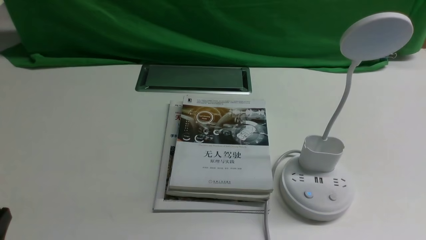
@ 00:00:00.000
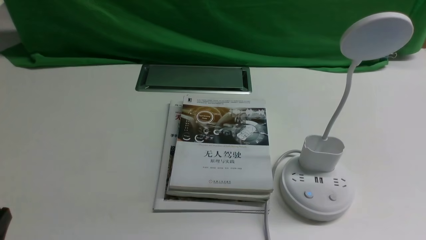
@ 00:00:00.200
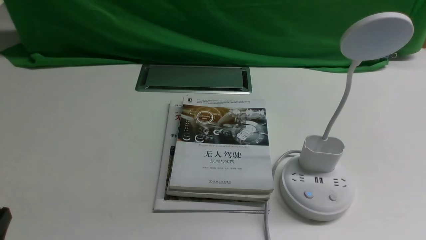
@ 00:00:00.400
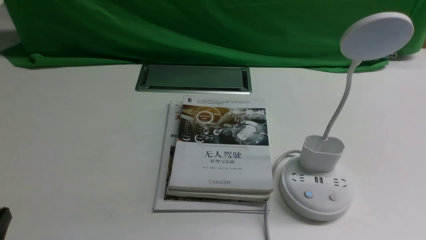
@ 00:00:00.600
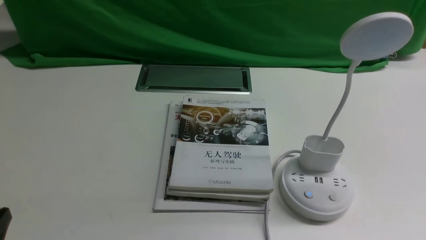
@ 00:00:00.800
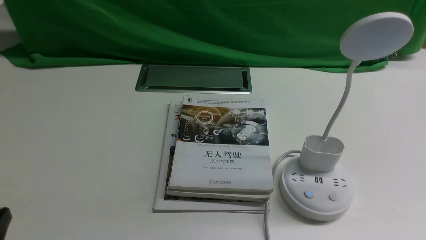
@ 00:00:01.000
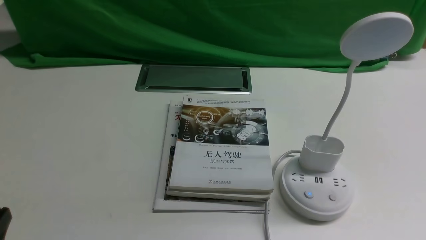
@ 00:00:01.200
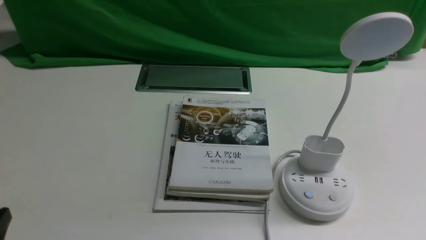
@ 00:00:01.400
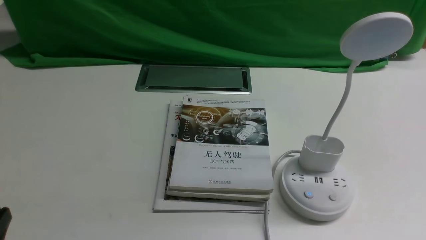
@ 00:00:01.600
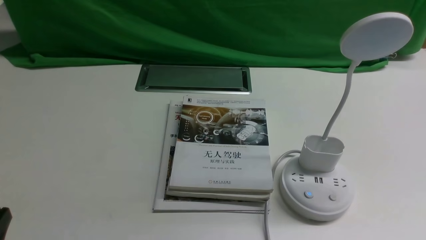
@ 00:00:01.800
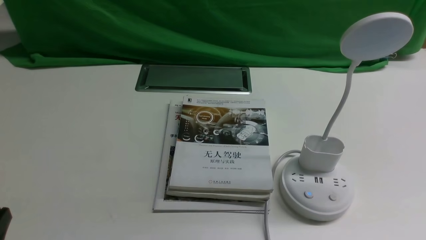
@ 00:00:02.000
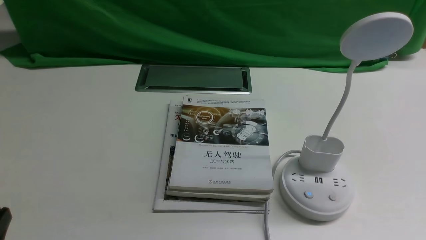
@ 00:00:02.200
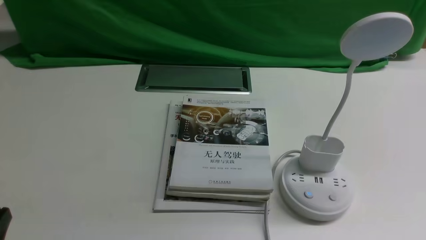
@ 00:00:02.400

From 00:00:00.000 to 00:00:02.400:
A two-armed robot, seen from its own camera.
Task of the whole recording: turn off the desk lamp on the white desktop by hand.
From 00:00:00.000 to 00:00:02.400: Neither gripper changes place.
